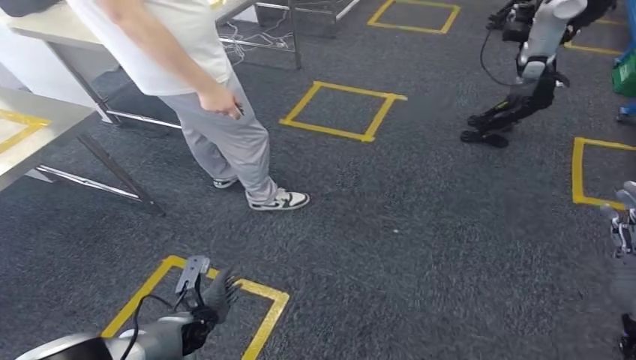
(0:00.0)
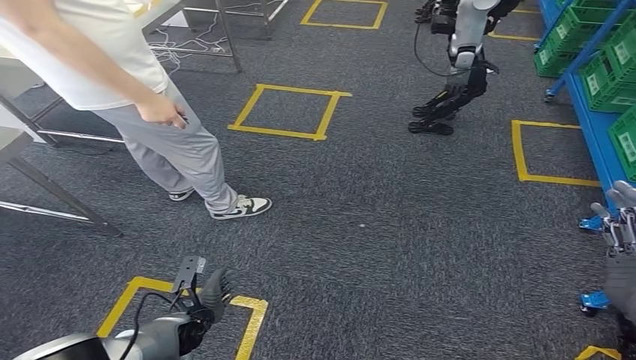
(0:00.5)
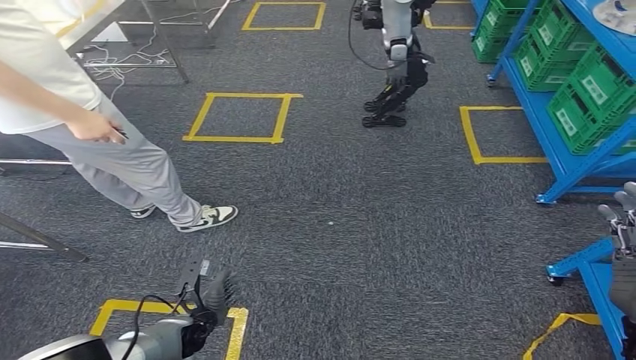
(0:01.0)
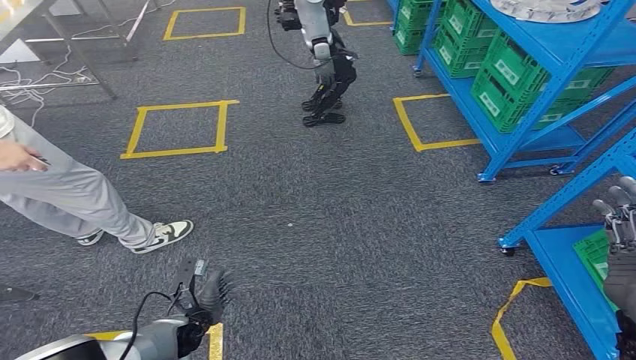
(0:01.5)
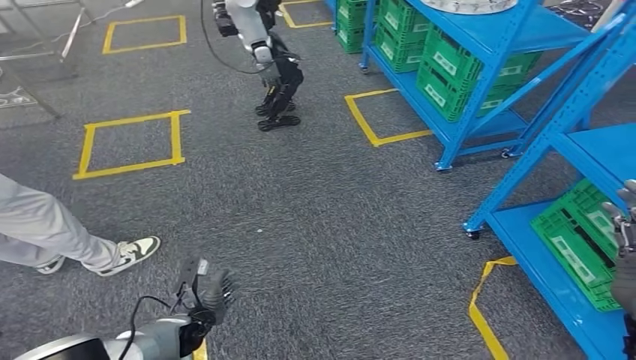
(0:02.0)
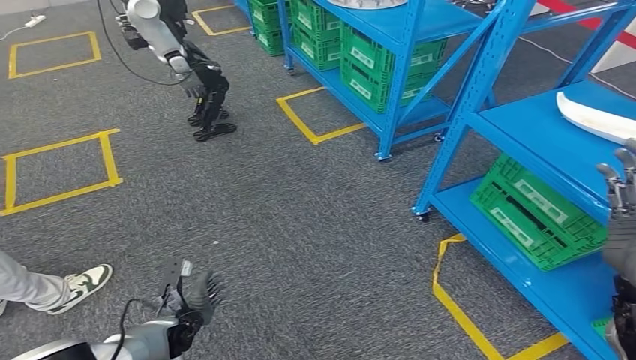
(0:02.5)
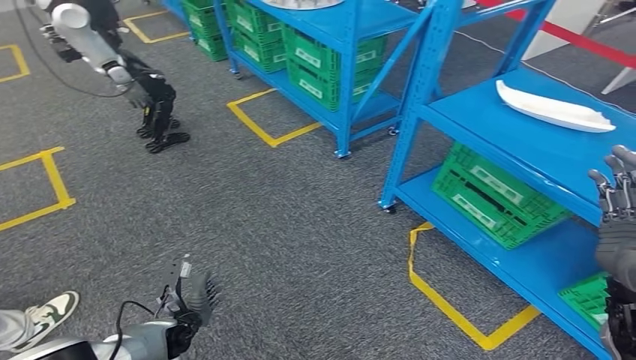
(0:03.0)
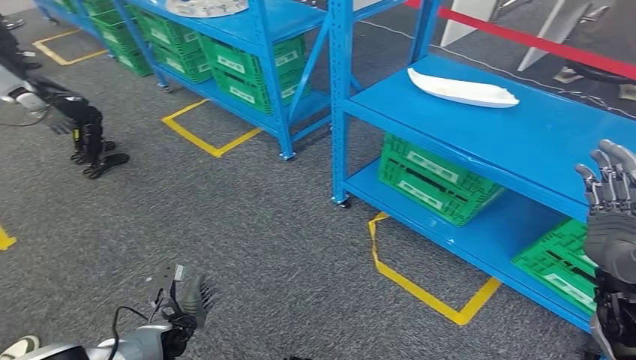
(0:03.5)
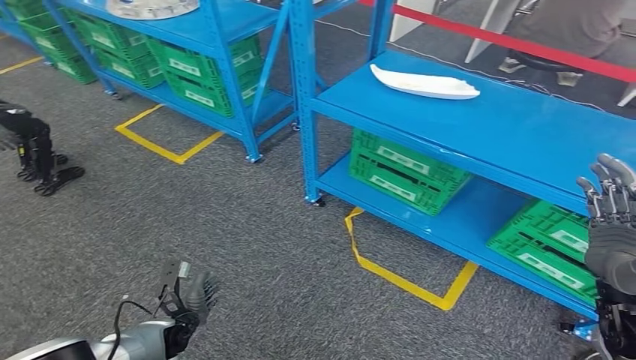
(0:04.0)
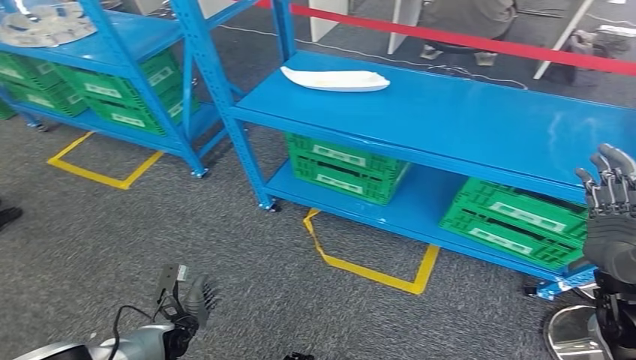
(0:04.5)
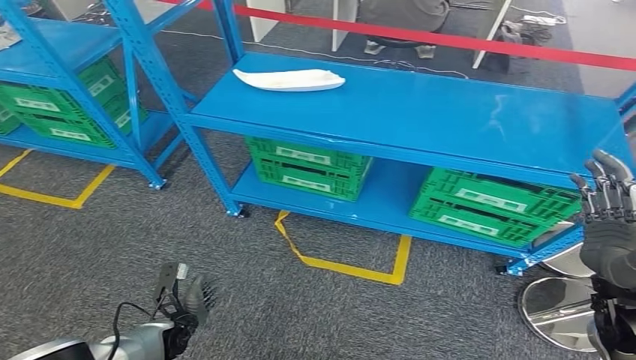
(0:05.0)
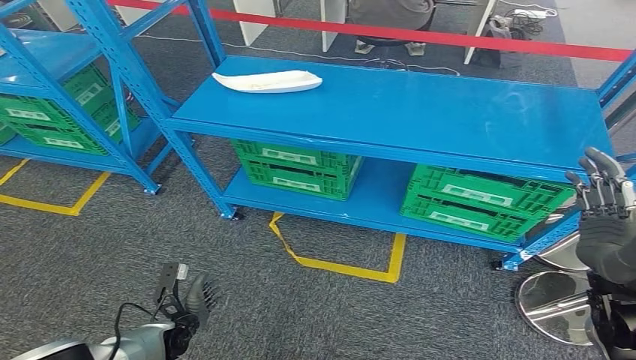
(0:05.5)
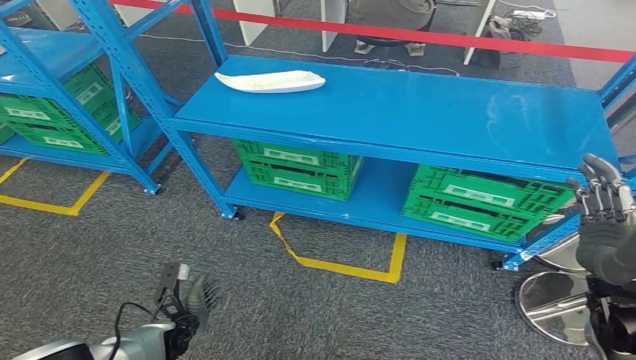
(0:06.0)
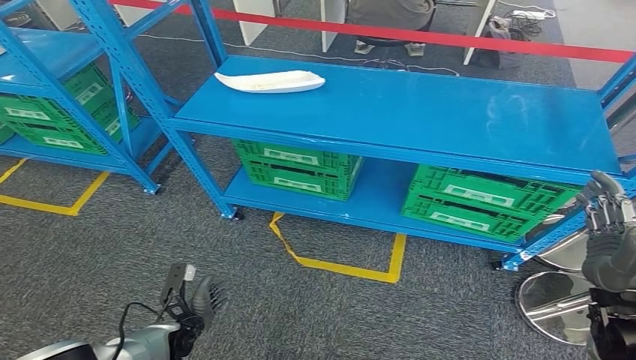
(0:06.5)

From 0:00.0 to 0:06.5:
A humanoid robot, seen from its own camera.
Step, from 0:00.0 to 0:06.5: Return to the initial position at the workbench.
